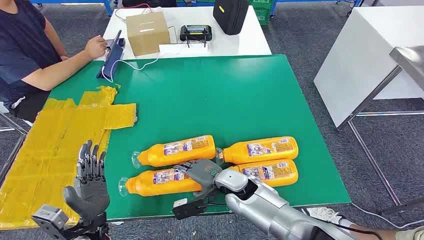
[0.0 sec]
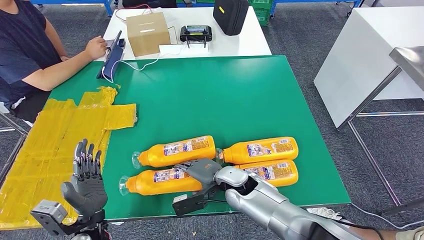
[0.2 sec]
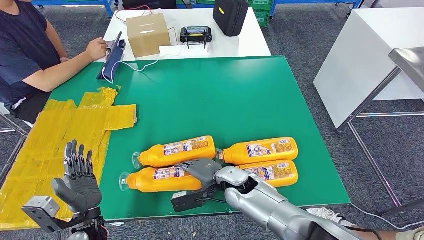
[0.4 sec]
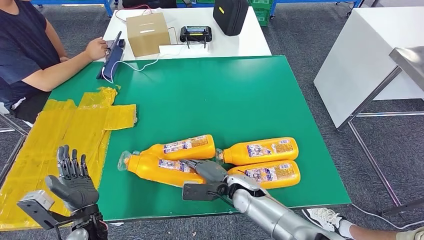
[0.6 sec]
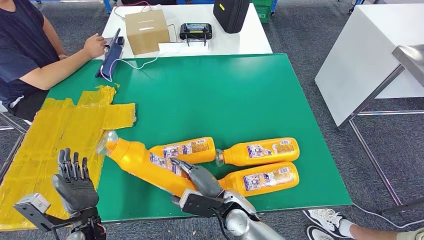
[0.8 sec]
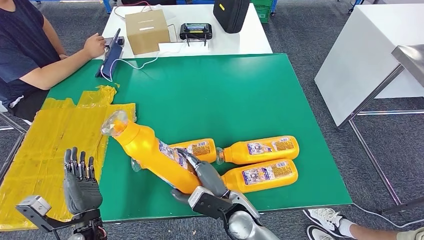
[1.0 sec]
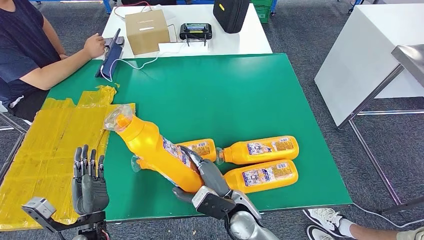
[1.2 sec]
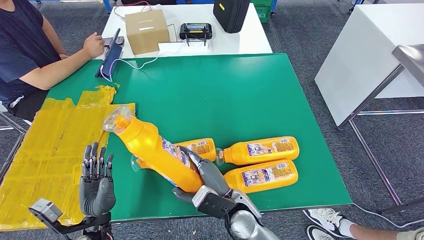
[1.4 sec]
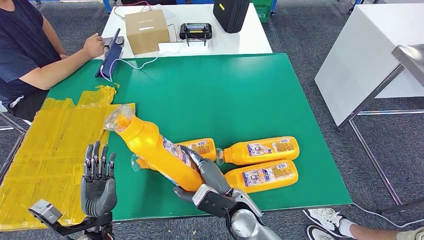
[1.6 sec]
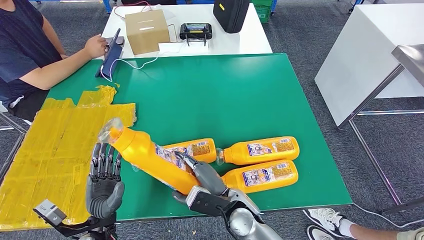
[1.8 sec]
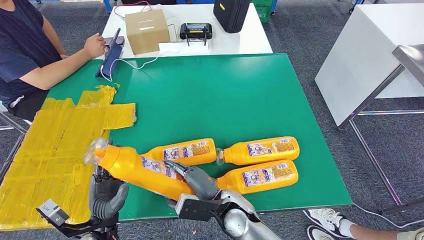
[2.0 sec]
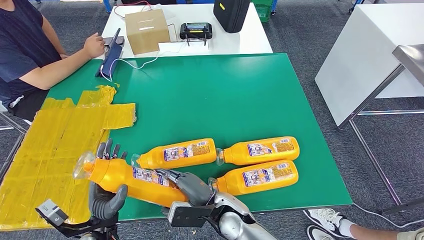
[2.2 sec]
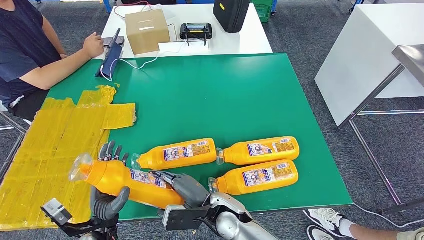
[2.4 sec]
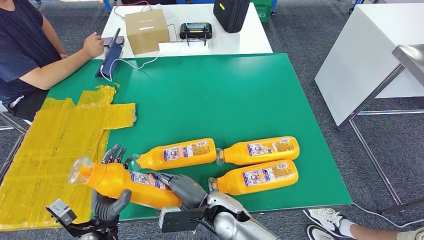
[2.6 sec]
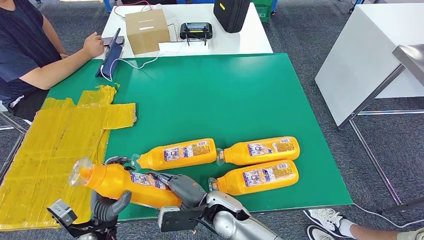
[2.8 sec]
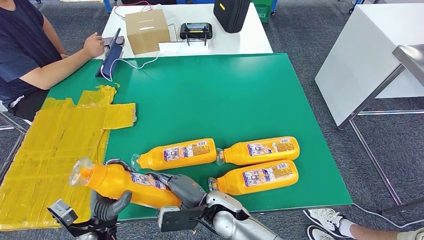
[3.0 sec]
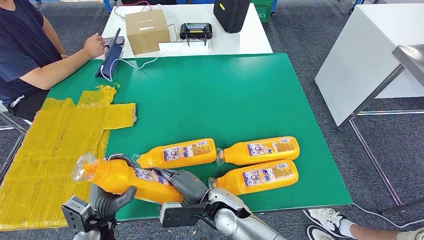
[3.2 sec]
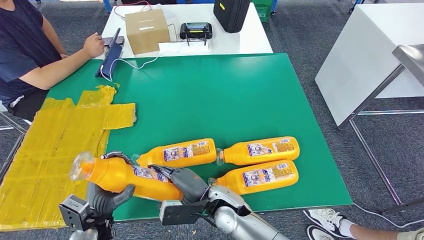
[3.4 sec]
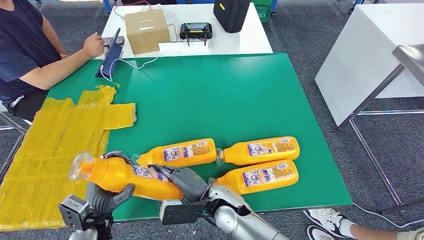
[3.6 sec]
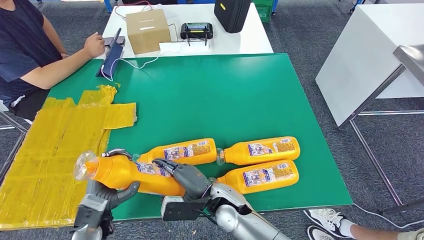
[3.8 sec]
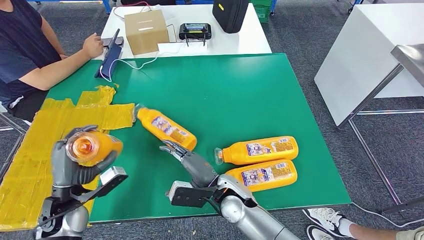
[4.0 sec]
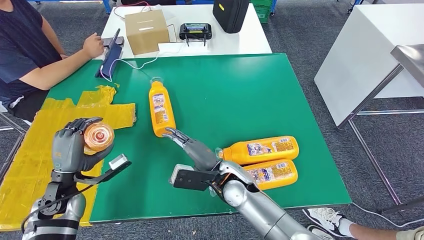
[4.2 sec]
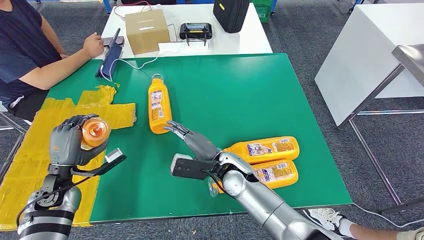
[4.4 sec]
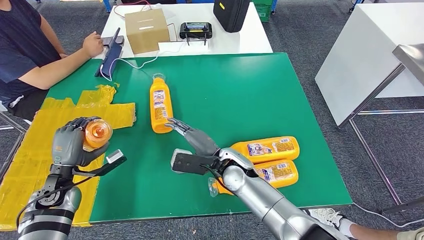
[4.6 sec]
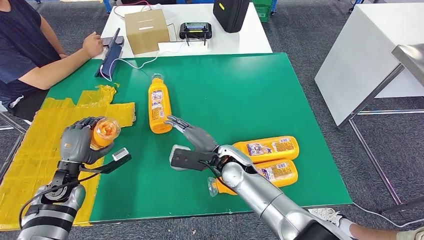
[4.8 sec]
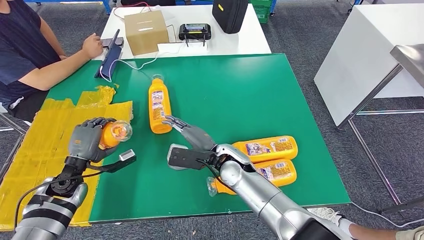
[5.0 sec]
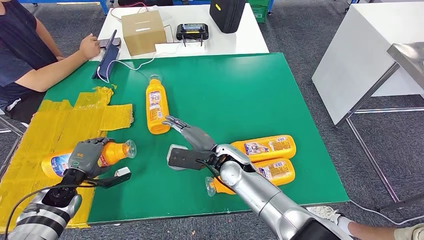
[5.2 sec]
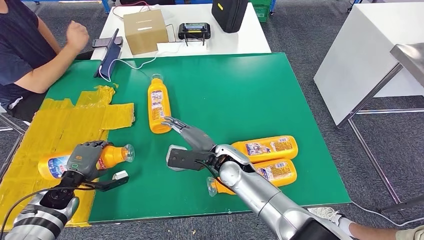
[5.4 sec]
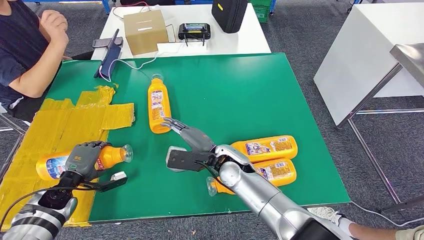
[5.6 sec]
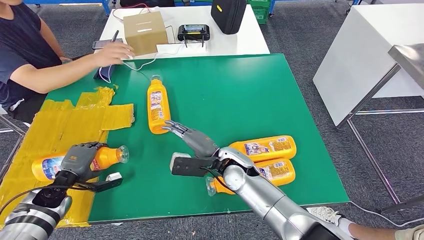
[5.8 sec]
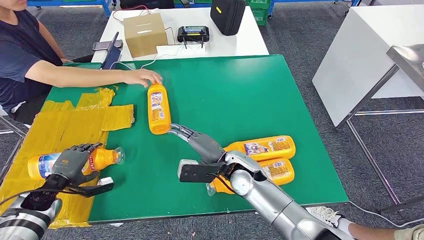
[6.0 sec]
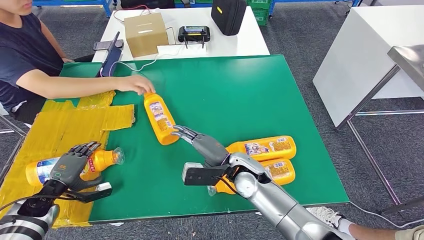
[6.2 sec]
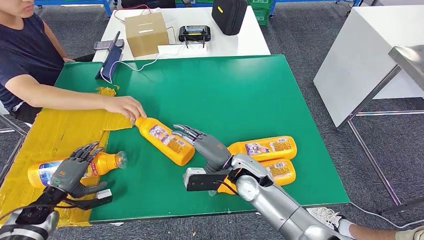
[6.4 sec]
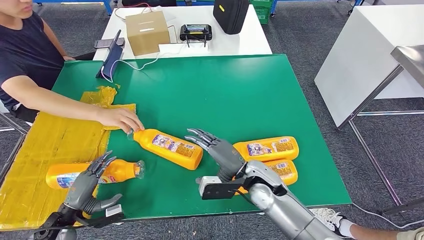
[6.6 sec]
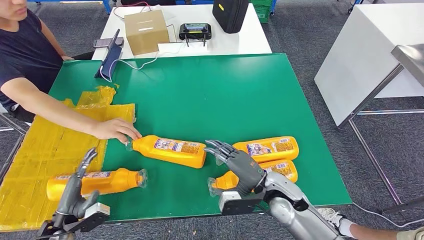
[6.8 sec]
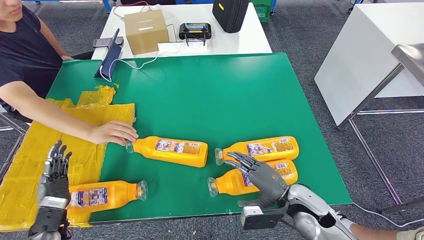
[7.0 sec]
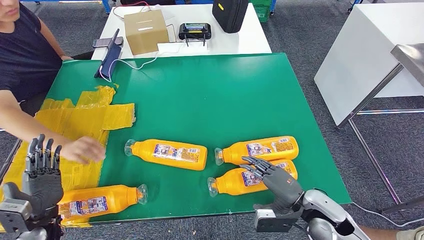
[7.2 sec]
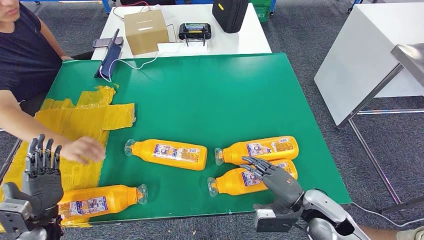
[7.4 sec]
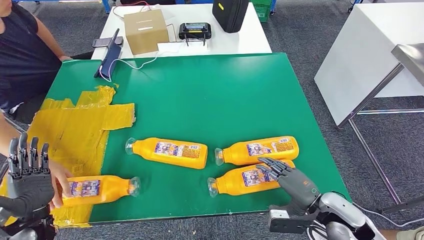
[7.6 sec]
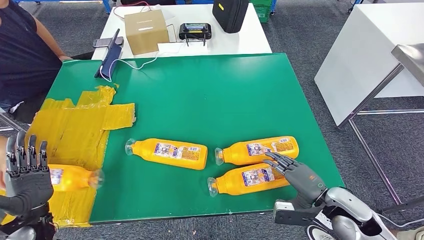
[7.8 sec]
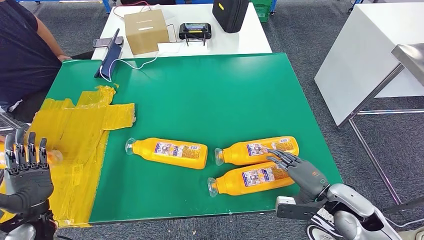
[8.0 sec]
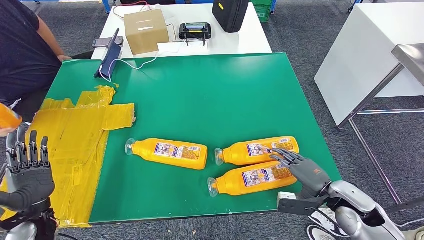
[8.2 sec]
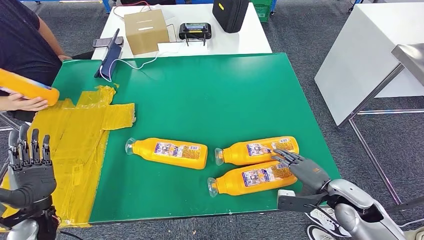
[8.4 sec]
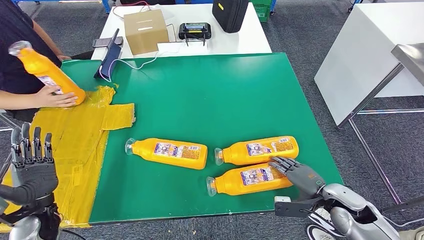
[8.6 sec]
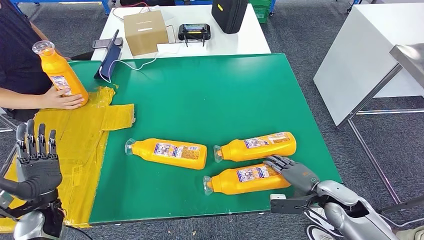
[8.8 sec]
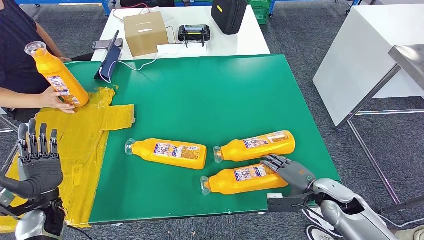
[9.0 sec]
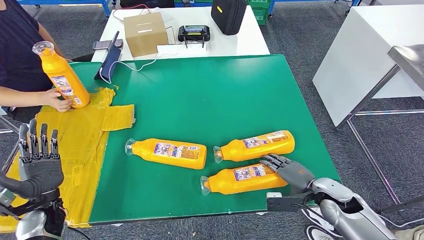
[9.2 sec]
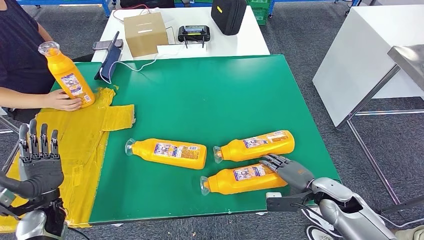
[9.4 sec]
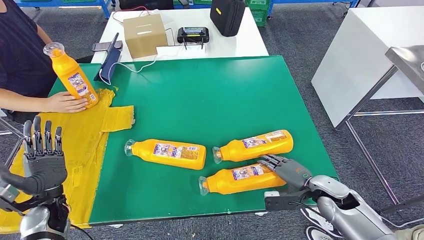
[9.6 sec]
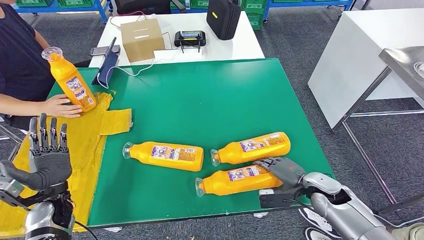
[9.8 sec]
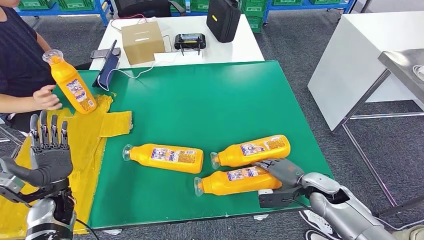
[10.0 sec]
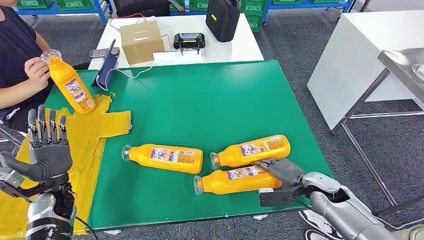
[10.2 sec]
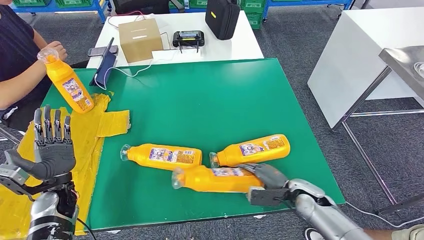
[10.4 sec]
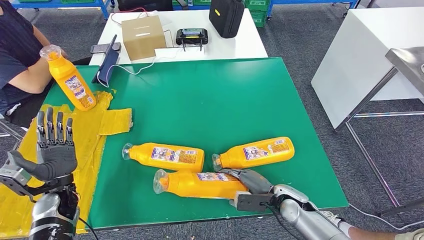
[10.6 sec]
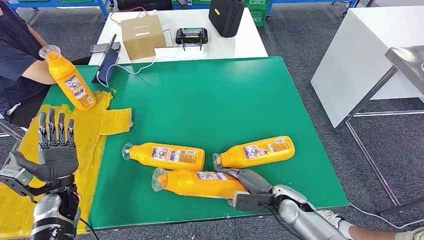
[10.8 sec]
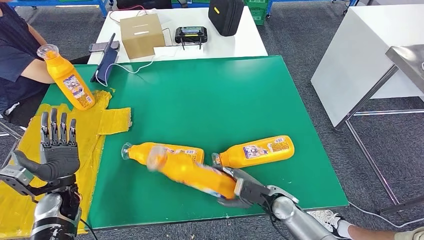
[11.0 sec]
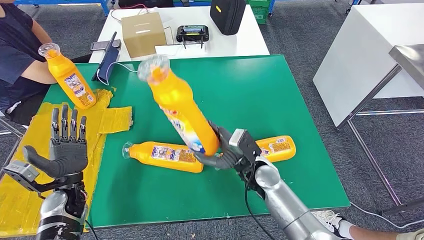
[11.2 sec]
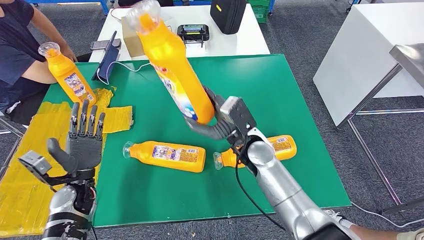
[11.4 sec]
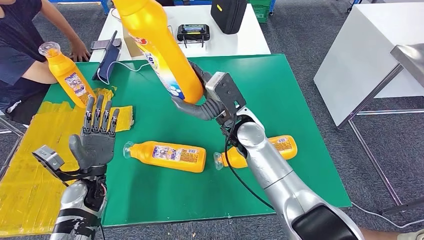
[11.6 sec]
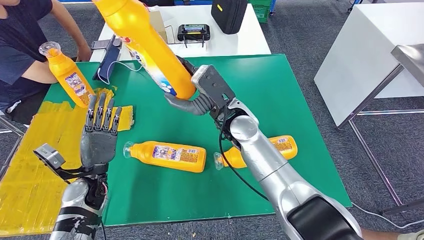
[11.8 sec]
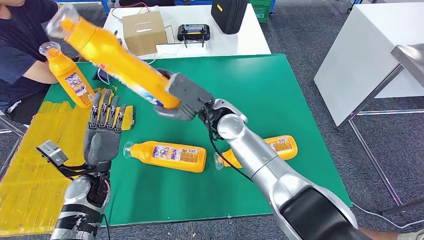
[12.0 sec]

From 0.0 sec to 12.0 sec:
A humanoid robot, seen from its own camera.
Step, from 0.0 sec to 3.0 sec: Take the bottle from the table.
Step, from 3.4 sec to 7.2 sec: Flip the bottle to face forward.
Step, from 7.4 sec to 11.8 sec: Pick up the bottle from the table.

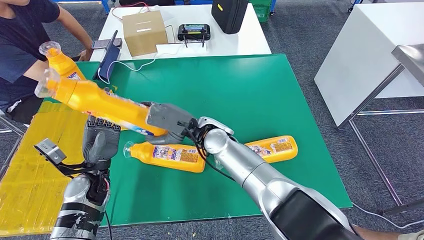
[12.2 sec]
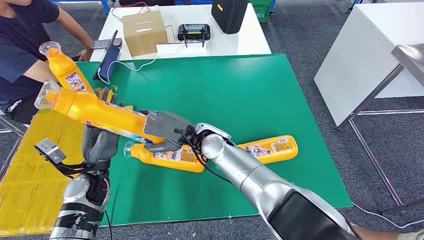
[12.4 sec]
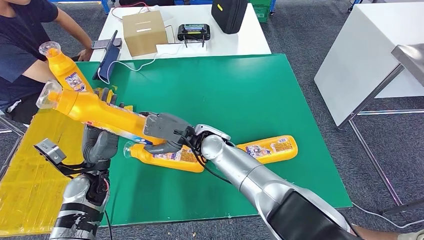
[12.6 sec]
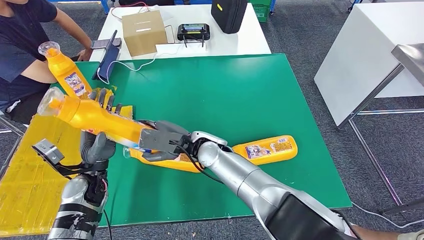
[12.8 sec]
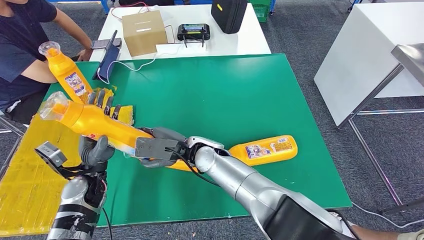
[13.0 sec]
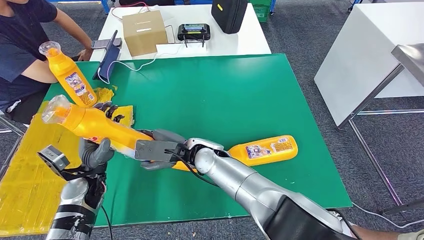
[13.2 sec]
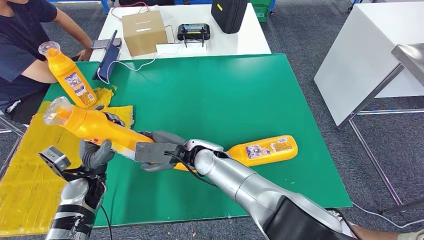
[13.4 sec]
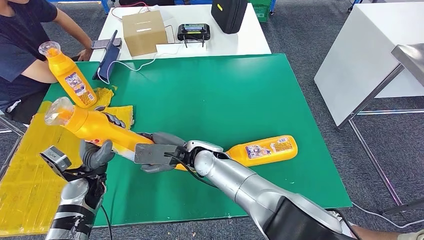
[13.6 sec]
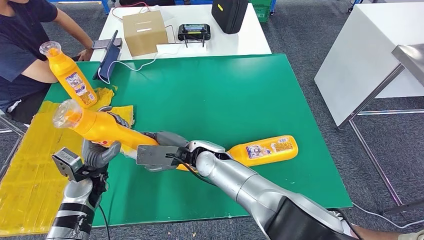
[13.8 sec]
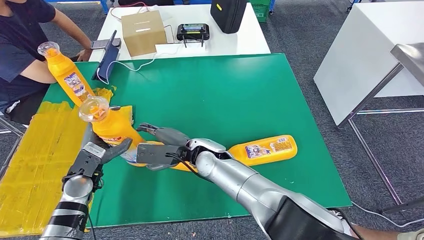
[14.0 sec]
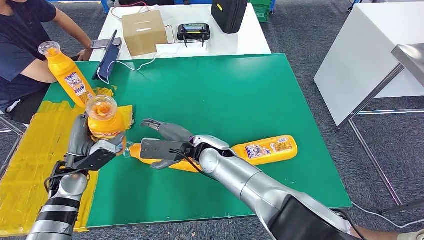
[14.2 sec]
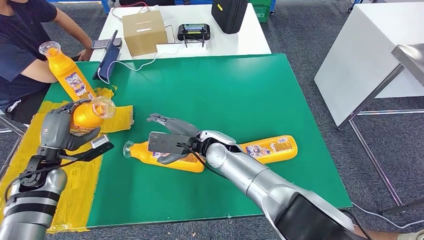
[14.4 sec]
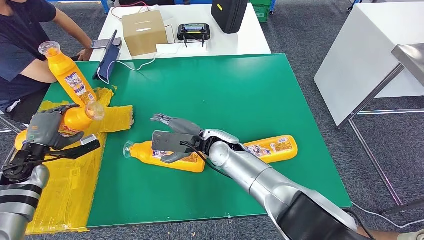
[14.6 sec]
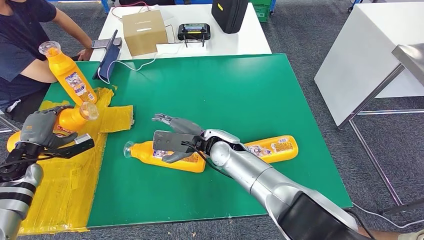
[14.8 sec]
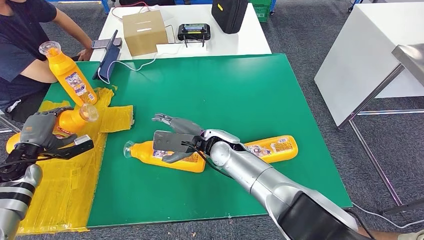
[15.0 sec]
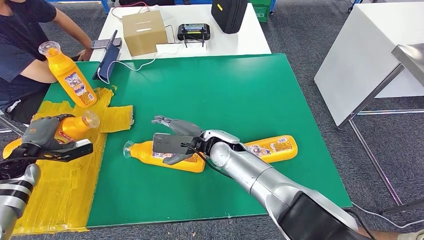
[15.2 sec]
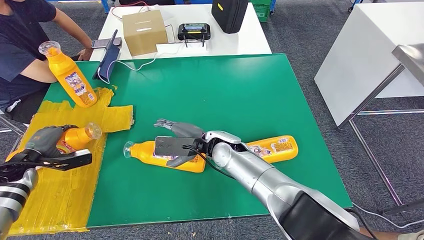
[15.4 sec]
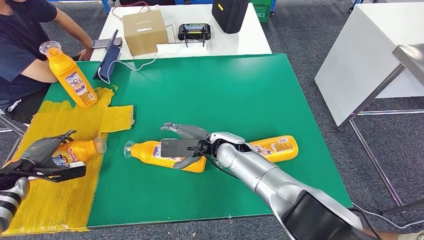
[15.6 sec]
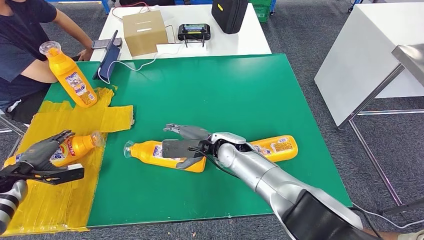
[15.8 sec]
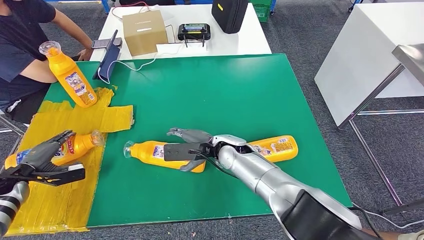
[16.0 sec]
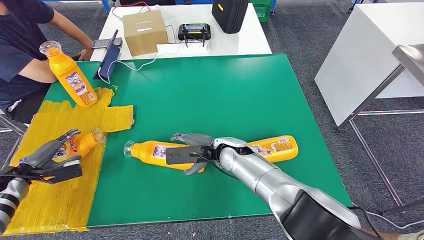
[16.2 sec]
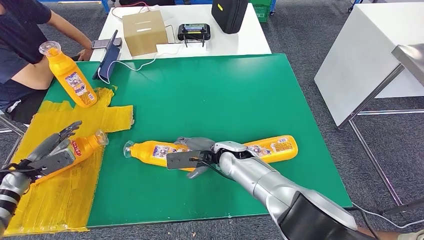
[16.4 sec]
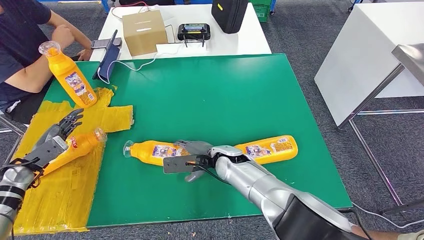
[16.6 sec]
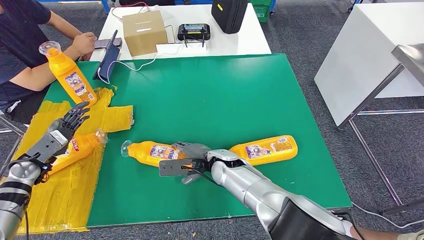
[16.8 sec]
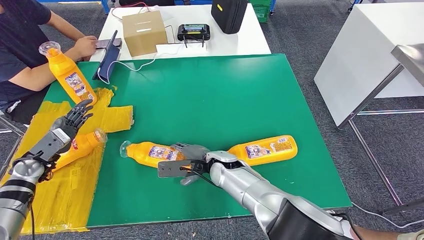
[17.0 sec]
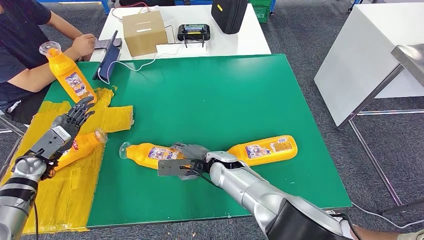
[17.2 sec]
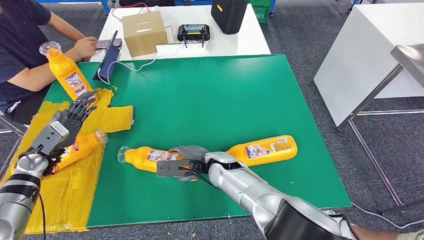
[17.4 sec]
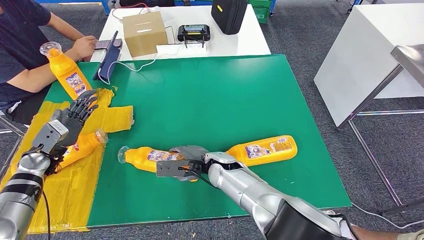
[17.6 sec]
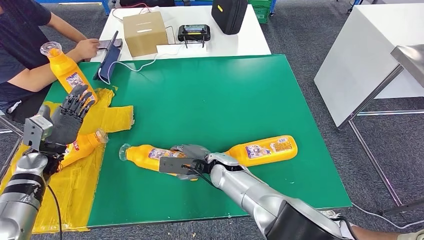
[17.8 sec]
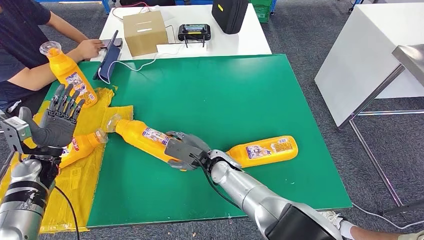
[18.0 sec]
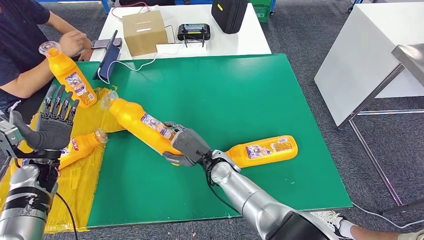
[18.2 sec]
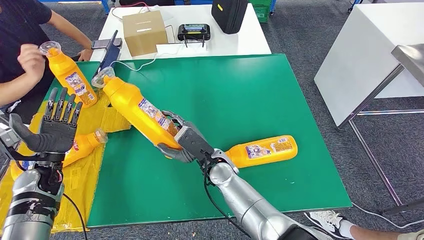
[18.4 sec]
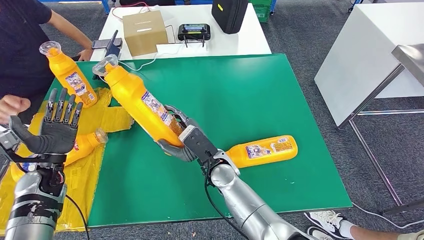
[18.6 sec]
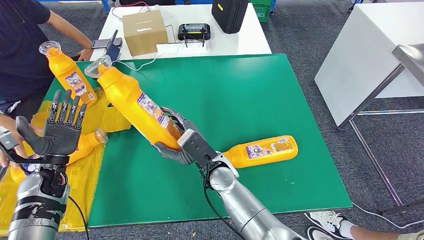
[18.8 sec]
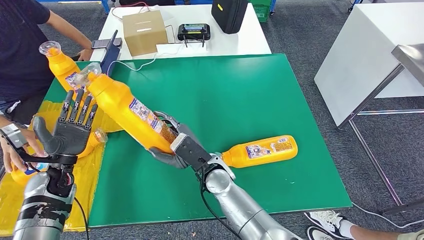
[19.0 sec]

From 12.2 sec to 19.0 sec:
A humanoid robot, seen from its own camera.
Step, from 12.2 sec to 16.8 sec: Flip the bottle to face forward.
From 12.2 sec to 13.6 sec: The right hand ends up approximately 5 cm from where it was.
From 13.6 sec to 15.0 sec: The right hand shifts by approximately 5 cm, while the left hand is displaced to the left by approximately 20 cm.
From 15.0 sec to 16.2 sec: The left hand changes place by roughly 5 cm.
